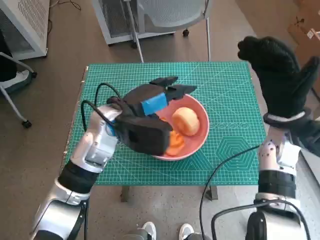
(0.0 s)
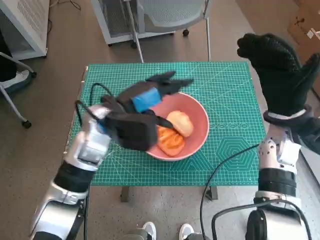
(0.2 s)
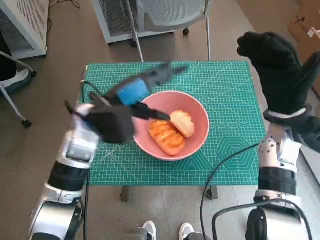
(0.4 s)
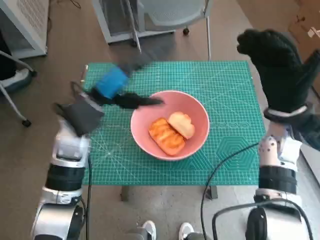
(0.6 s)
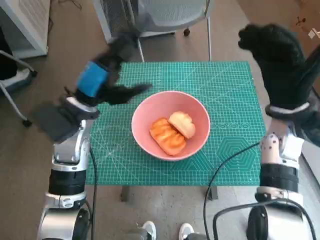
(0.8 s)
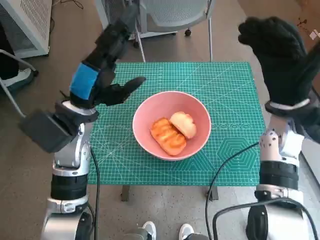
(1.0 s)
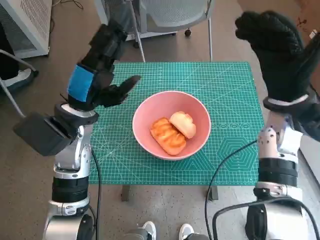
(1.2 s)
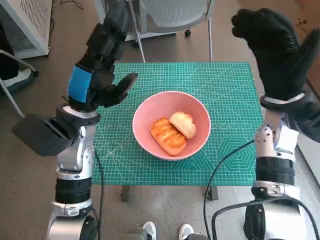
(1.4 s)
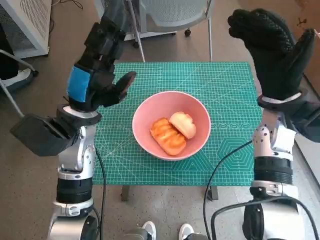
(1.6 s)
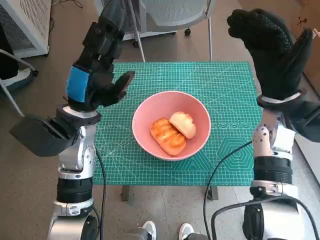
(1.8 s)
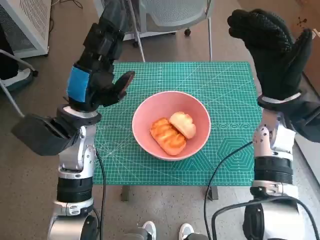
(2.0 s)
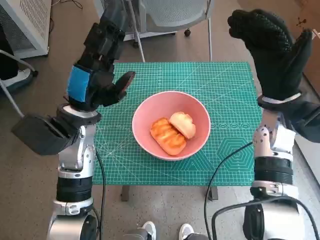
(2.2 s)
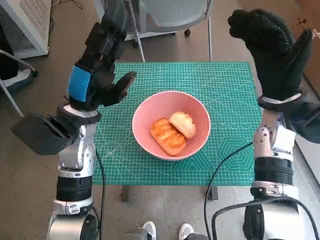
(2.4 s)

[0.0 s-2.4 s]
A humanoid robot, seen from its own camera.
0.0 to 1.2 s: The left hand heads to the left, covering about 5 cm.
1.2 to 2.4 s: There are only small adjustments of the hands.

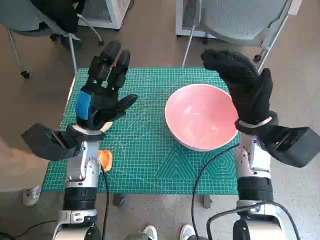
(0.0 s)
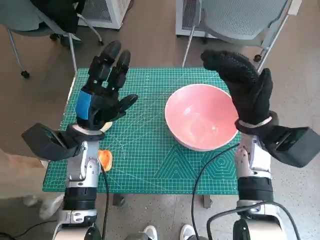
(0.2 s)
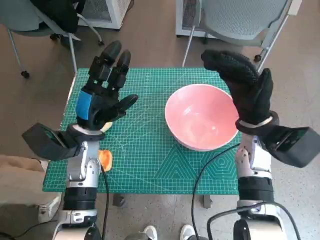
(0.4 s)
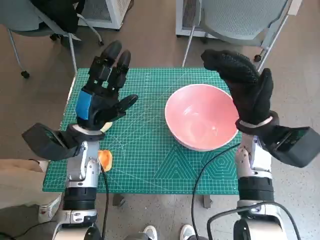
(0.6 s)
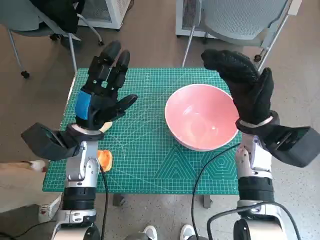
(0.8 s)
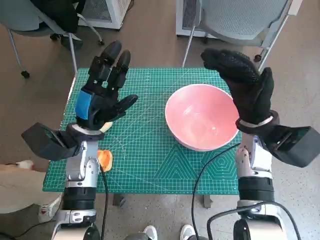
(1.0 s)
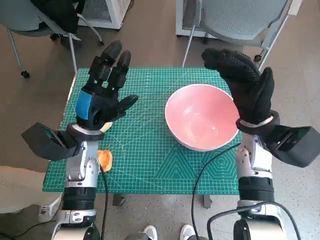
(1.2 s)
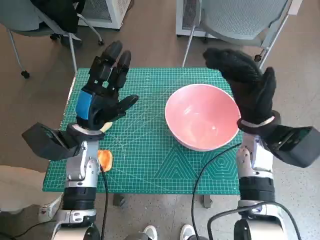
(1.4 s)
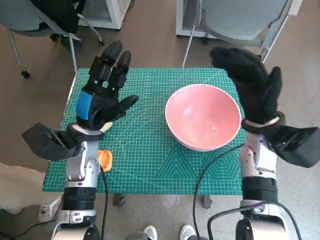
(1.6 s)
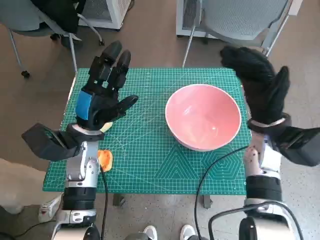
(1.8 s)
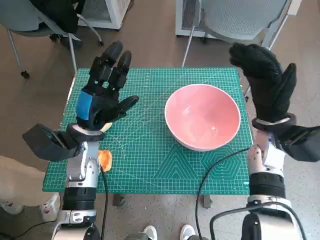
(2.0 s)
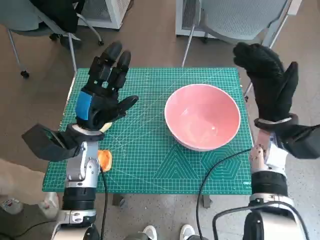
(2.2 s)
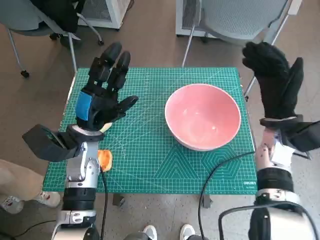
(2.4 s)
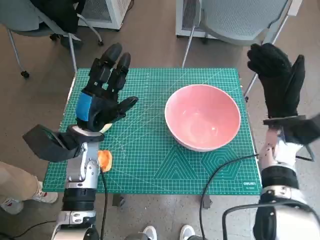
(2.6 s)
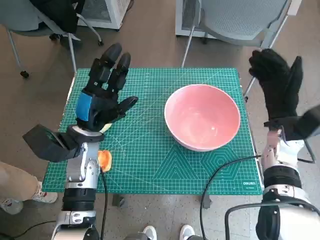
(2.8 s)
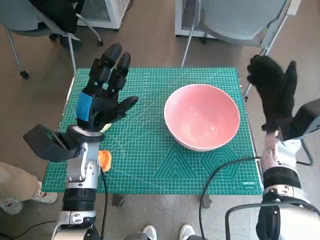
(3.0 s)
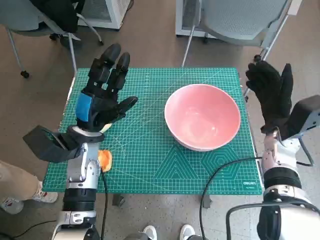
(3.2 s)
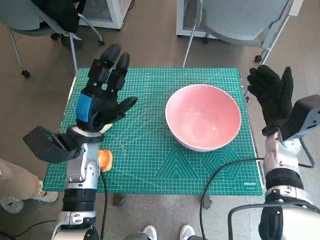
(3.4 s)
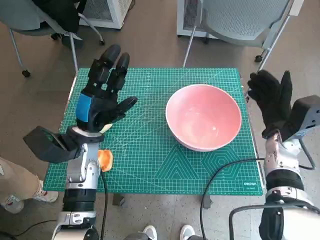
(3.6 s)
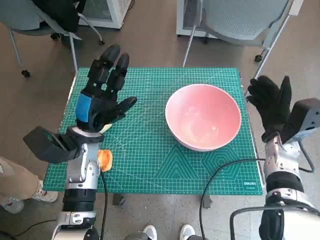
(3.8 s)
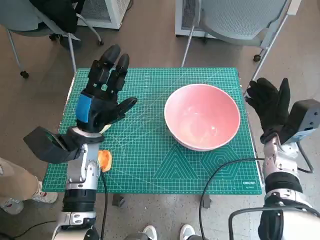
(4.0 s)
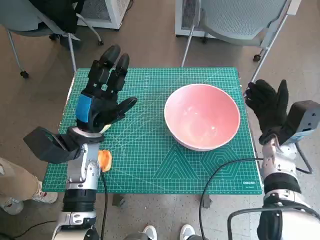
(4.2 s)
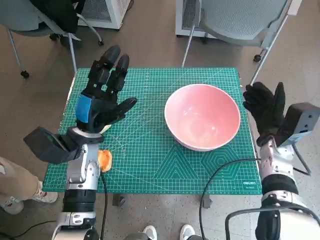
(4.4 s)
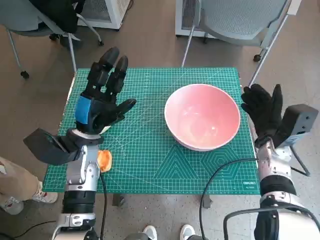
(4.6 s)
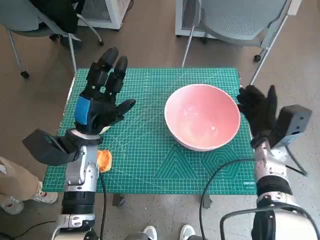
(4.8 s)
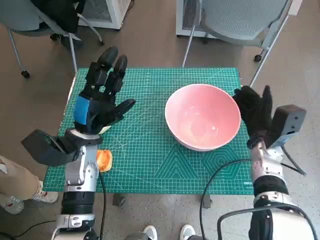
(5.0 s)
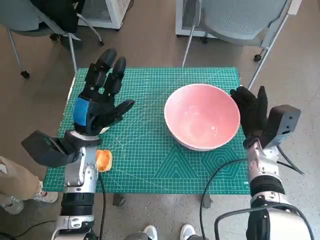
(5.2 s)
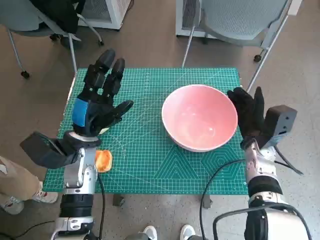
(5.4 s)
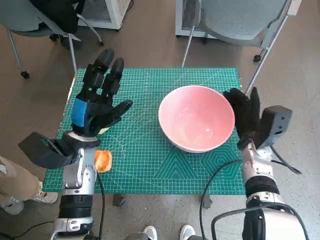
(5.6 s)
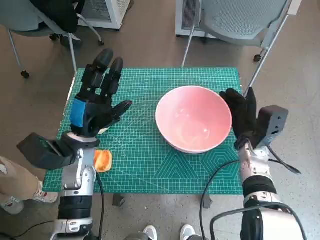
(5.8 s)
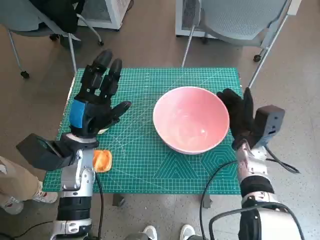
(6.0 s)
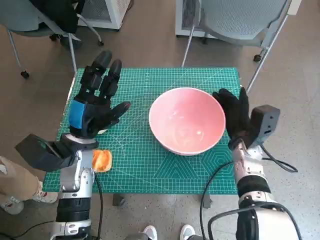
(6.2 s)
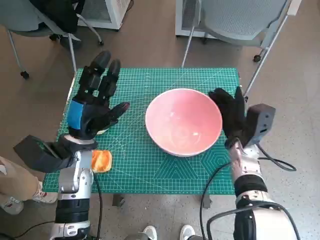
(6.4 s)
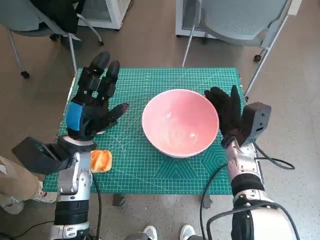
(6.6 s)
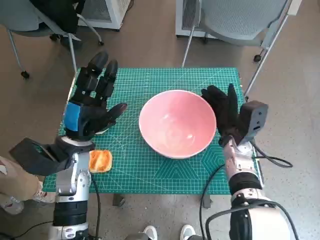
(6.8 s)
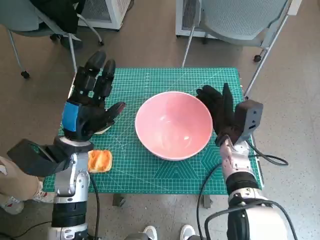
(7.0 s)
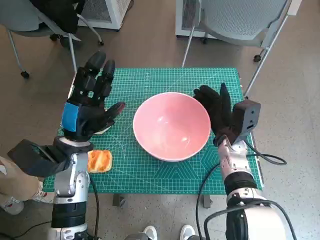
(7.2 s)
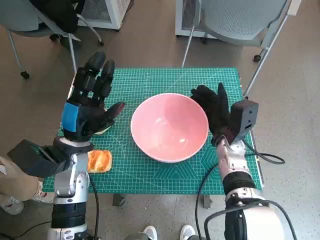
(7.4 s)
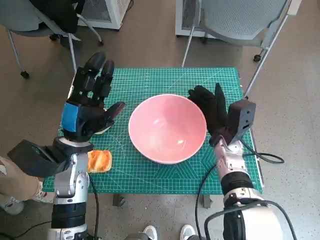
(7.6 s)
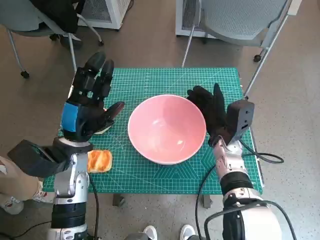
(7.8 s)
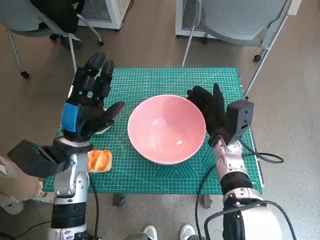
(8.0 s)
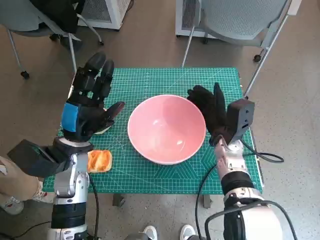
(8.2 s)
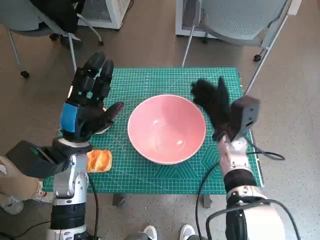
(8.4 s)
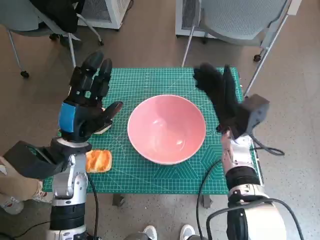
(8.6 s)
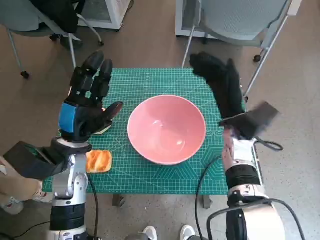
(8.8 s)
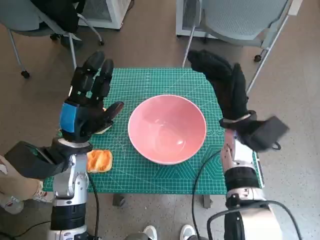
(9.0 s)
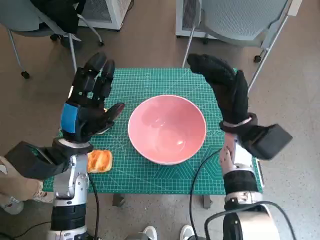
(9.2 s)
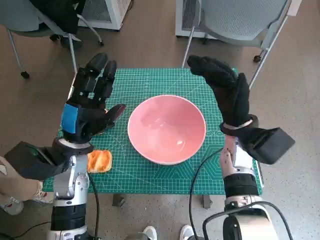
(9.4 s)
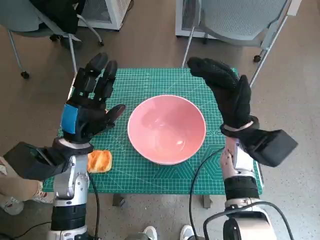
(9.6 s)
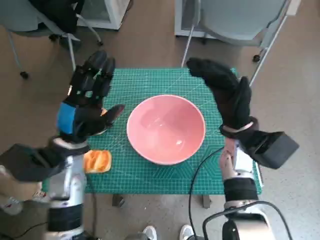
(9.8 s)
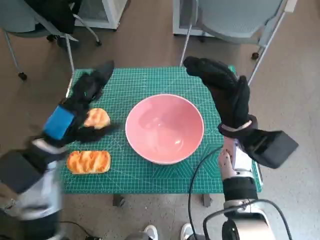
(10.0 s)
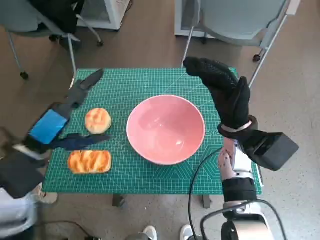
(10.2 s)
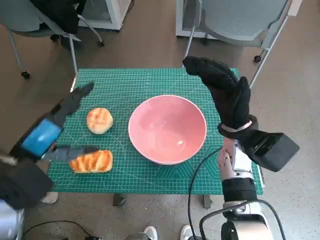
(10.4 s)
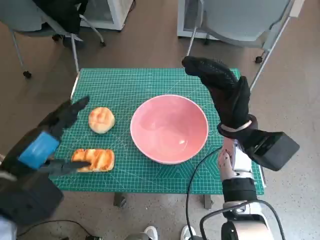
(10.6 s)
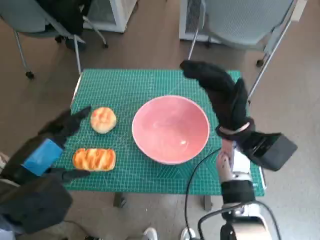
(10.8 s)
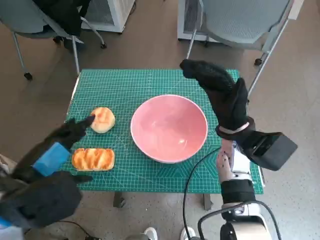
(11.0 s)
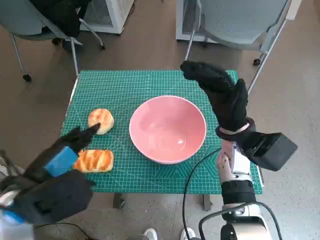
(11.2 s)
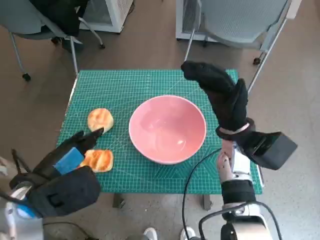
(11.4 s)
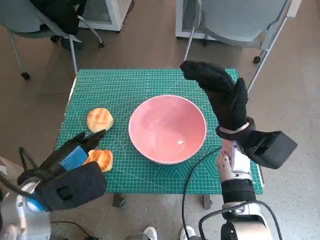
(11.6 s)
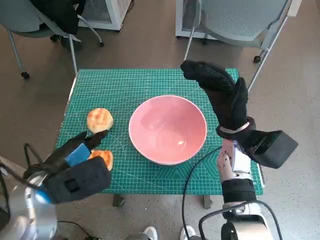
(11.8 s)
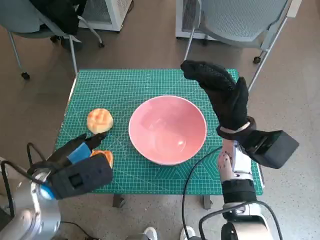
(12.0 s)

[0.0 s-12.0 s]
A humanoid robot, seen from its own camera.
Step, 0.0 to 8.4 s: Move the pink bowl to the center of table with right hand.
1.6 to 3.0 s: The right hand travels to the right by some 5 cm.
4.4 to 6.0 s: The right hand ends up about 5 cm from where it was.
6.0 to 7.6 s: The right hand shifts approximately 5 cm to the left.
7.6 to 9.0 s: The right hand moves upward, roughly 5 cm.
9.0 to 10.4 s: The left hand moves upward and backward, roughly 10 cm.
10.4 to 12.0 s: The left hand ends up approximately 5 cm from where it was.

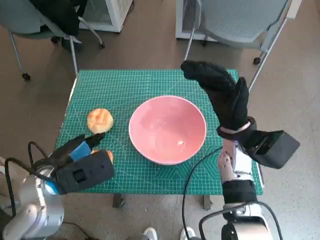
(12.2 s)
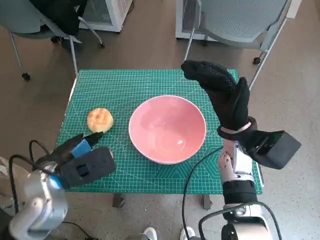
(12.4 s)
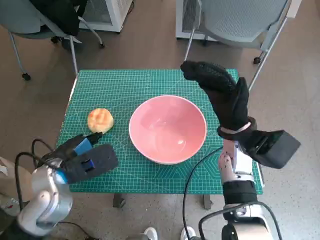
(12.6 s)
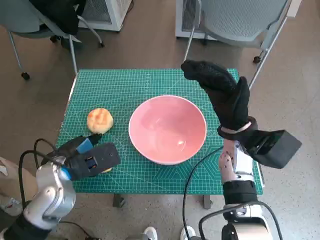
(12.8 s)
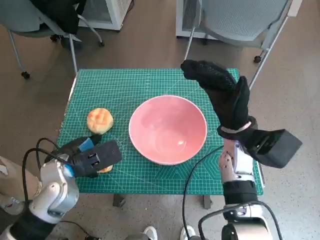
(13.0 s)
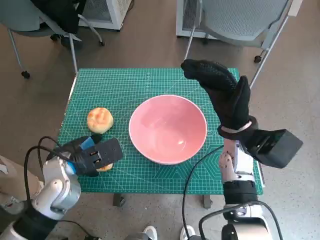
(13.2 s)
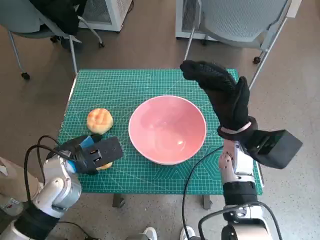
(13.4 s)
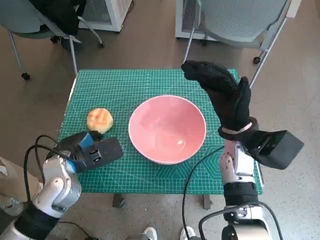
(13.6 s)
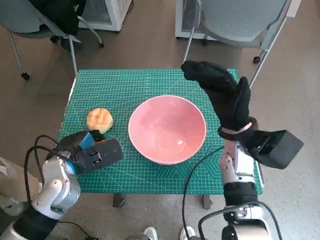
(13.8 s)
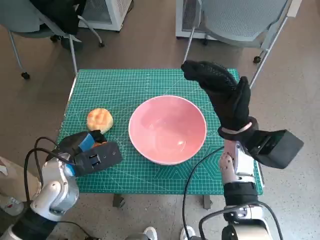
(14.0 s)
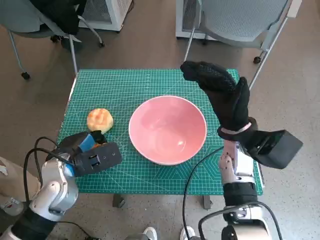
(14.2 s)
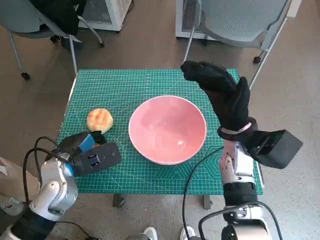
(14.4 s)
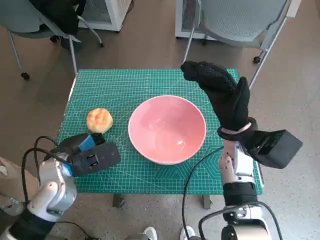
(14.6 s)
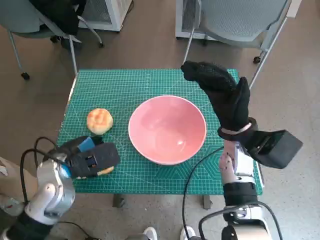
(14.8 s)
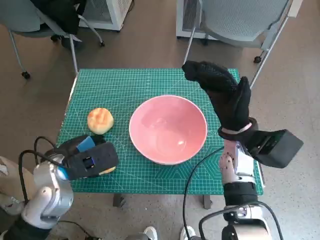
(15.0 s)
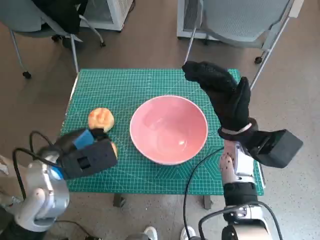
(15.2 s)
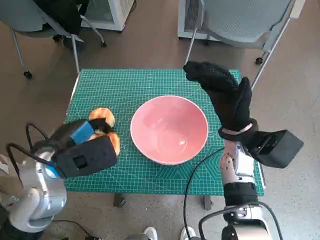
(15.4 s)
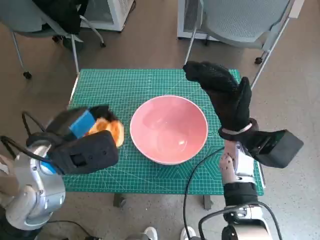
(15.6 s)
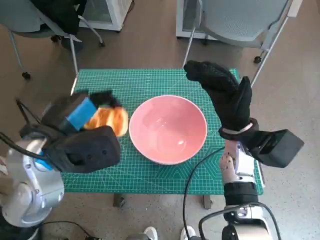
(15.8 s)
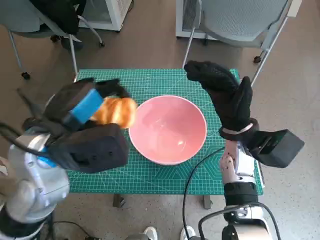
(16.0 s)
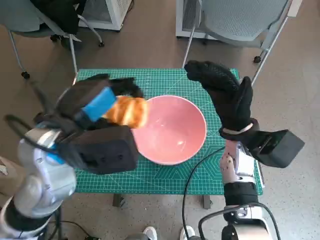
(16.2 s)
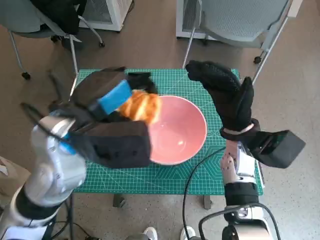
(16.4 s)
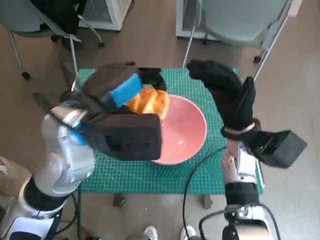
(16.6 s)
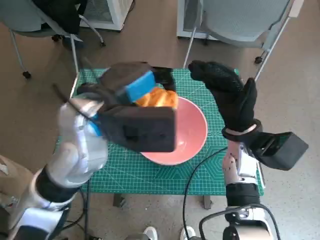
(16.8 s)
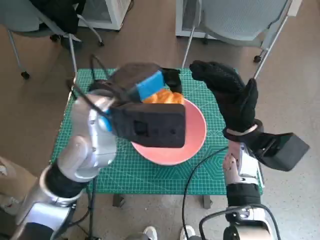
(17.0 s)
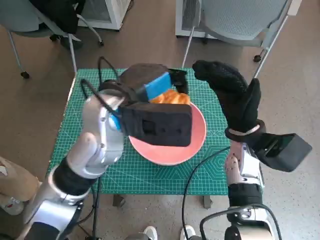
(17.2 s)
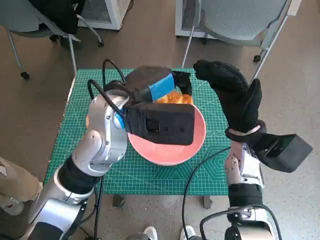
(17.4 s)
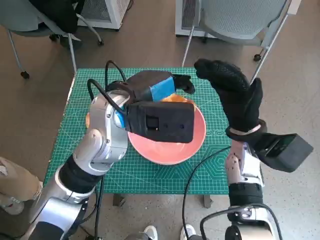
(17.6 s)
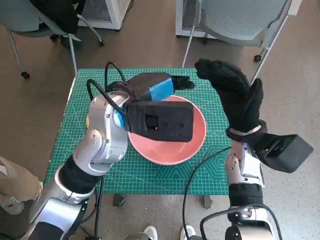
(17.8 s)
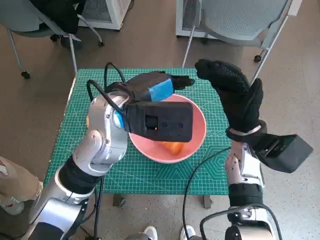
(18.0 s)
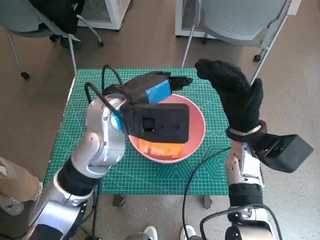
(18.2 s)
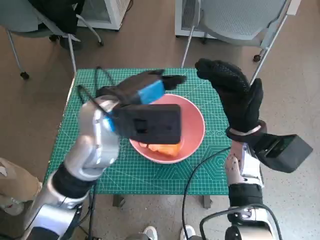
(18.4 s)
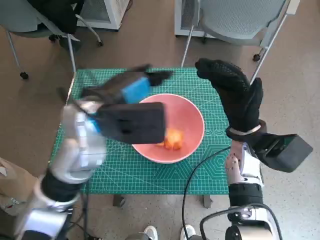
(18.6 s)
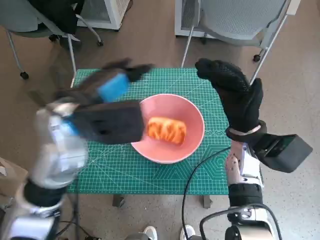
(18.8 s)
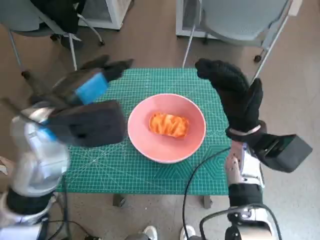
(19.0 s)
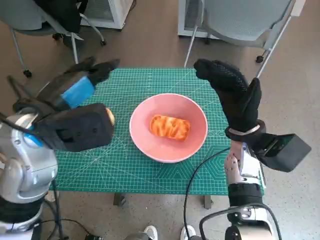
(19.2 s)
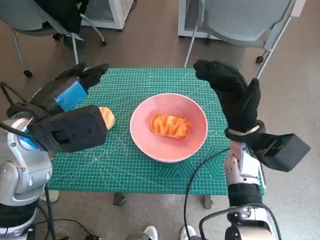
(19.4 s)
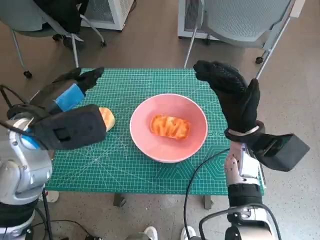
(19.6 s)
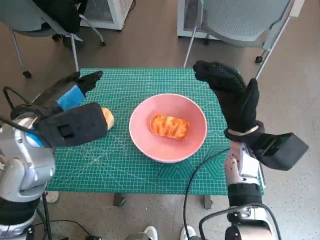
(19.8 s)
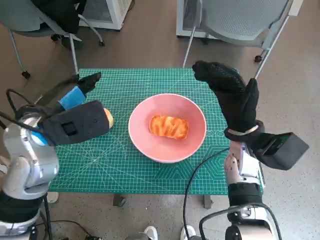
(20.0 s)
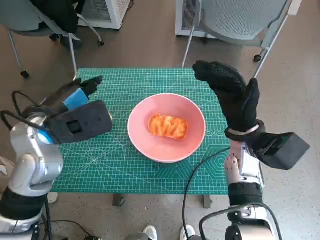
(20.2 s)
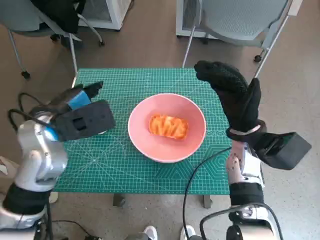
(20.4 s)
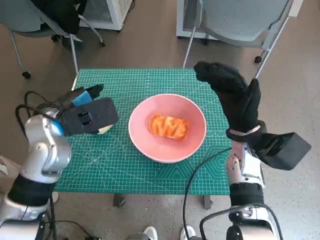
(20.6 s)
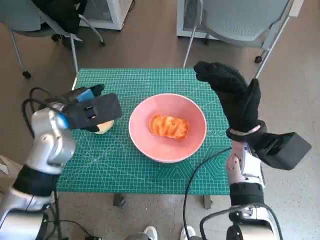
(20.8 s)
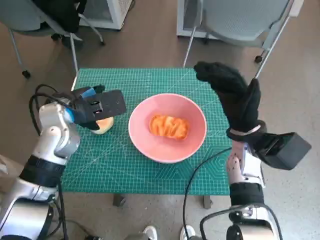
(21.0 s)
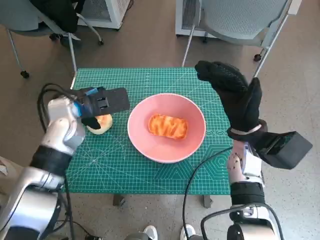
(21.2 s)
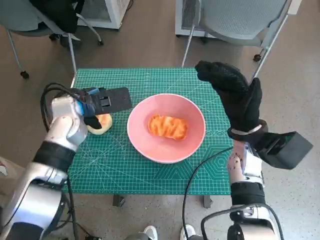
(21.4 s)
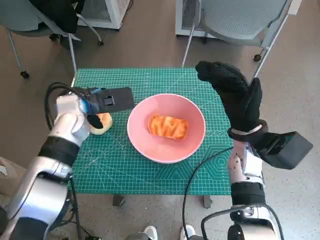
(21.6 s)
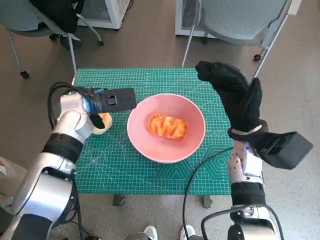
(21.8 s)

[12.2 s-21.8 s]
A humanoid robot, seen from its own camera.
Step, 13.6 to 17.8 s: Place the long bread in pink bowl with left hand.
12.2 to 13.8 s: The left hand changes place by about 5 cm.
13.8 to 15.4 s: The left hand is displaced upward by some 5 cm.
15.4 to 17.0 s: The left hand heads to the right and upward, covering roughly 15 cm.
17.0 to 18.6 s: There are only small adjustments of the hands.
18.6 to 20.2 s: The left hand moves to the left, about 10 cm.
20.2 to 21.8 s: The left hand heads forward and downward, covering about 10 cm.
